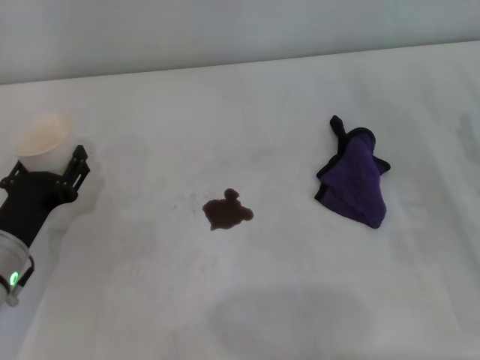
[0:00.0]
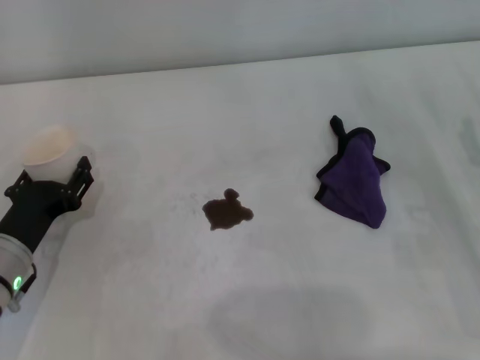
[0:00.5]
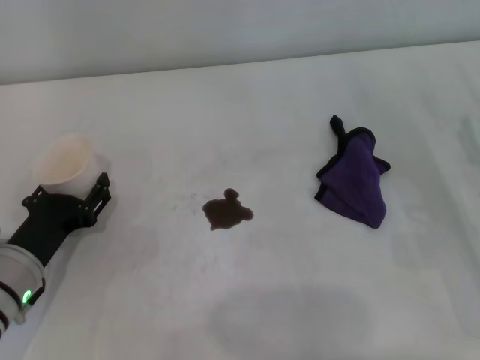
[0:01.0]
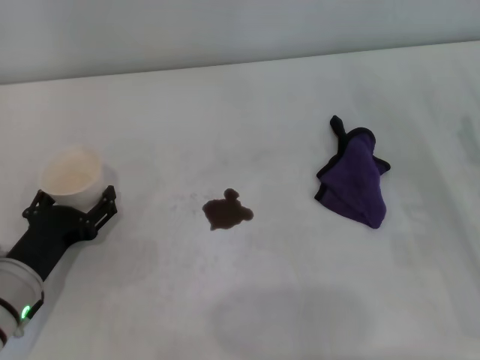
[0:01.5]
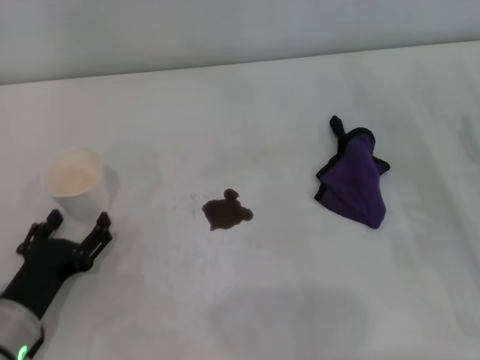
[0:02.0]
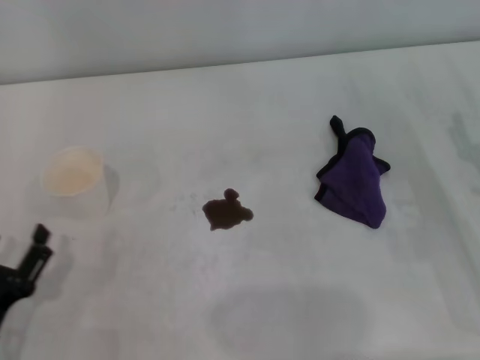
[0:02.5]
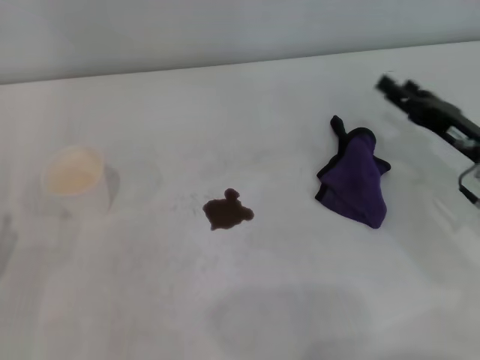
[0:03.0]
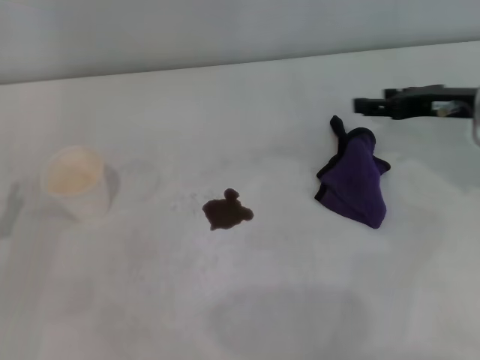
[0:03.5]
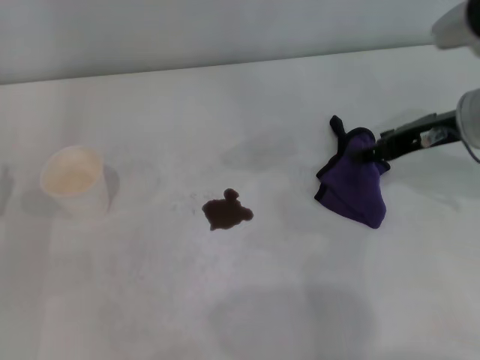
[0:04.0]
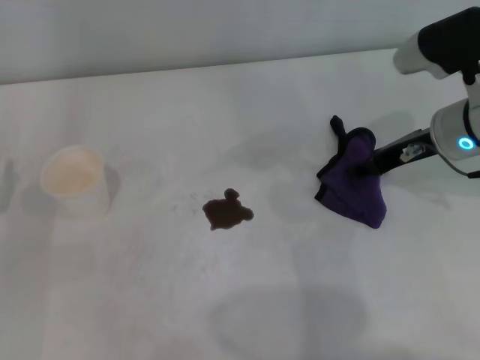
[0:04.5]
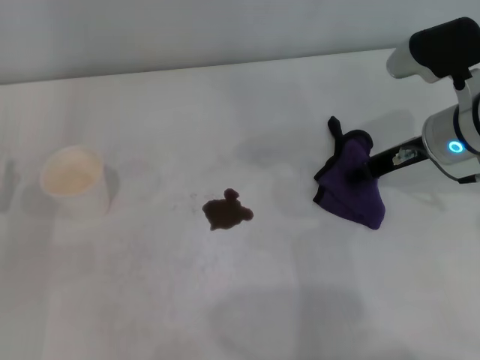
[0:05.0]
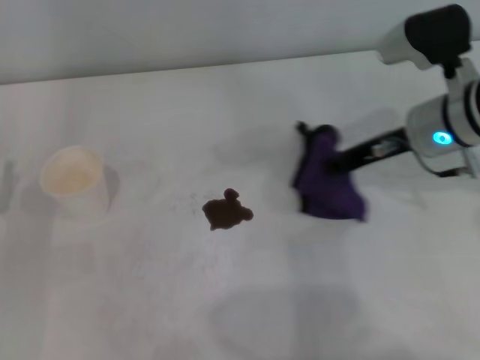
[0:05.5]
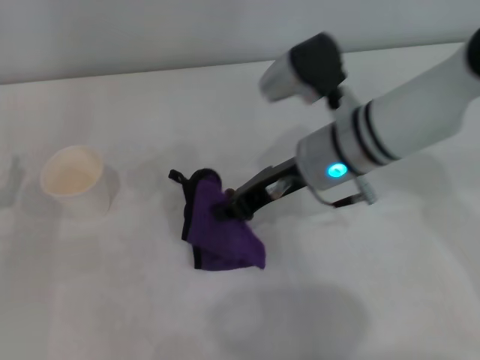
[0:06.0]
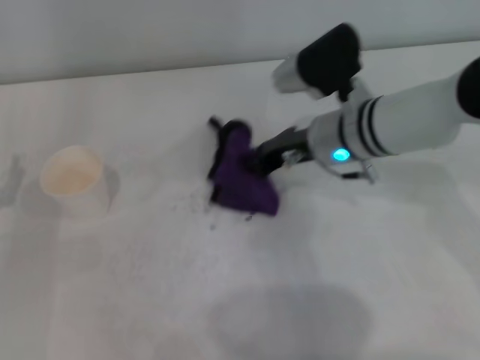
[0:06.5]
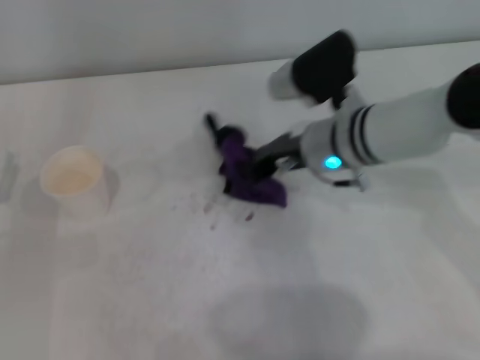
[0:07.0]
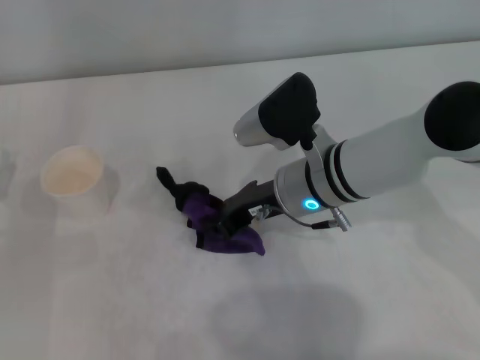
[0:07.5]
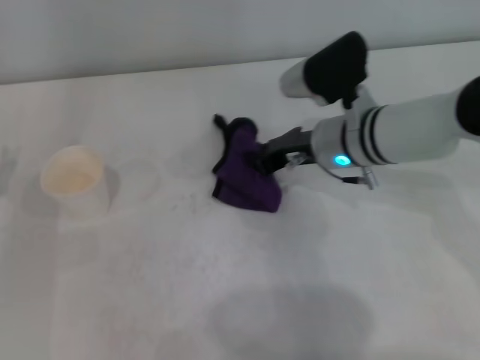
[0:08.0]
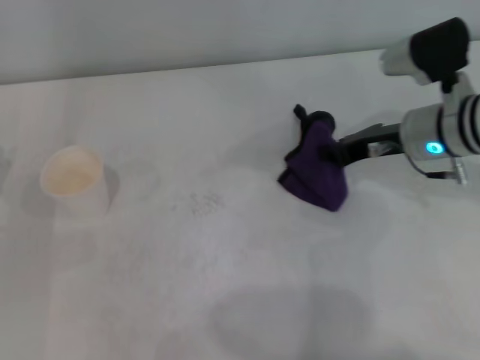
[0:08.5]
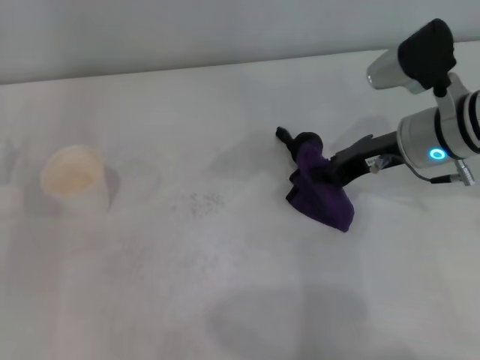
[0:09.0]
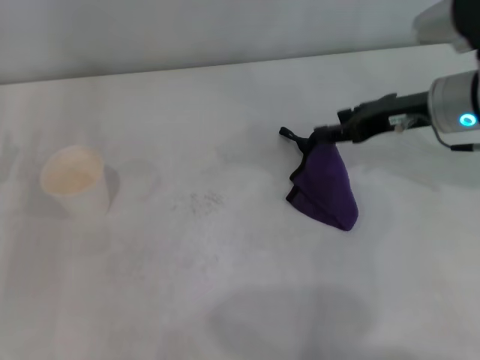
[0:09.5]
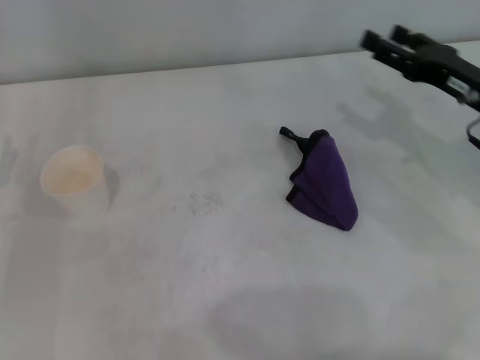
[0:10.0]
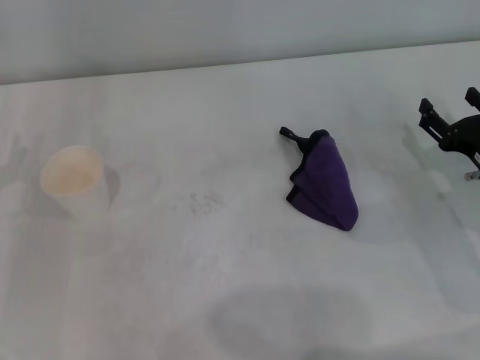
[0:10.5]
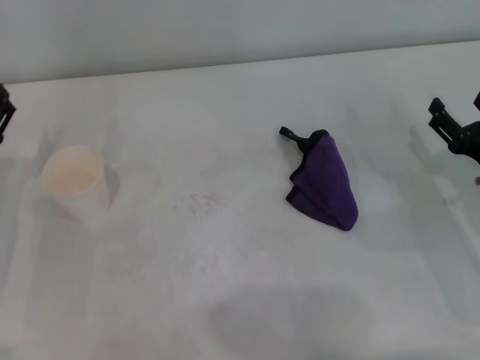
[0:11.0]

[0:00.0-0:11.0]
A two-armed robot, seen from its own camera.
Step, 0:02.0 to 0:05.0: Grasp the rag with the right gripper.
Step, 0:05.5 to 0:08.5: Wipe the stains off the table with the right gripper.
0:00.0 to 0:02.0: The left gripper moves backward, roughly 5 cm, and opens.
0:02.0 to 0:03.5: The right gripper shifts roughly 15 cm forward and upward, while the left gripper is displaced to the left by roughly 10 cm.
0:03.5 to 0:05.5: The right gripper goes about 10 cm to the left, and closes up.
0:05.5 to 0:07.5: The right gripper moves to the left, approximately 10 cm.
0:07.5 to 0:09.0: The right gripper heads to the right, covering some 10 cm.
0:09.0 to 0:11.0: The right gripper heads backward, to the right and downward, covering about 15 cm, and opens up.
